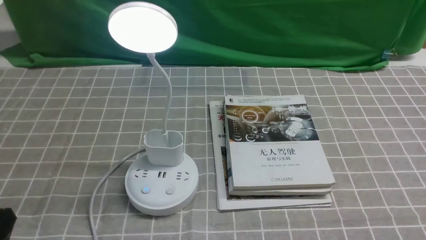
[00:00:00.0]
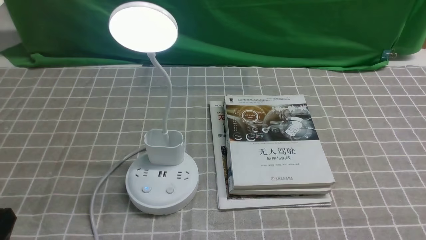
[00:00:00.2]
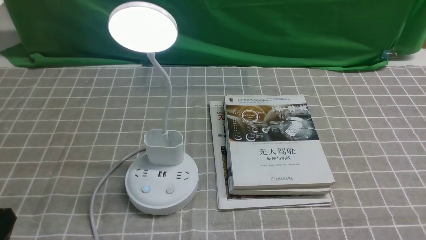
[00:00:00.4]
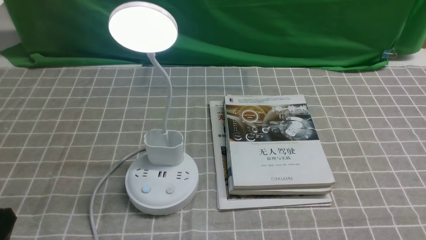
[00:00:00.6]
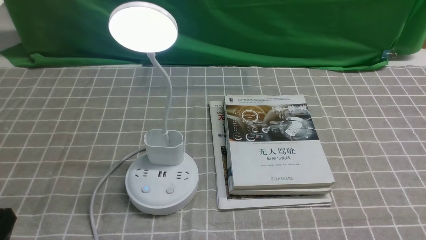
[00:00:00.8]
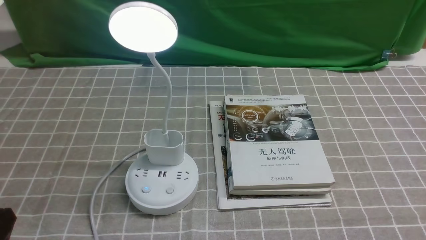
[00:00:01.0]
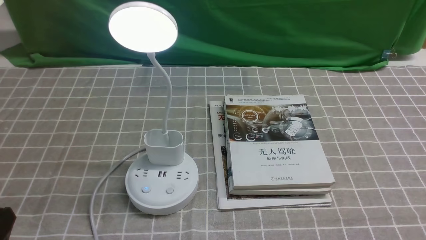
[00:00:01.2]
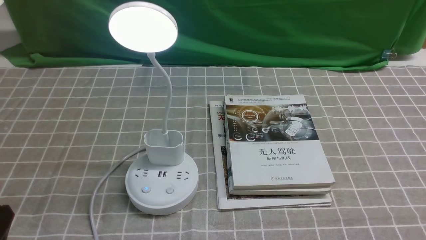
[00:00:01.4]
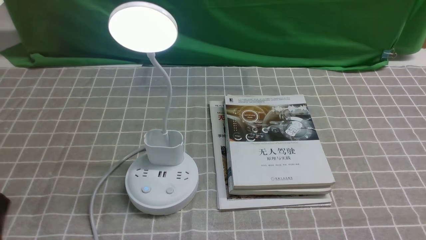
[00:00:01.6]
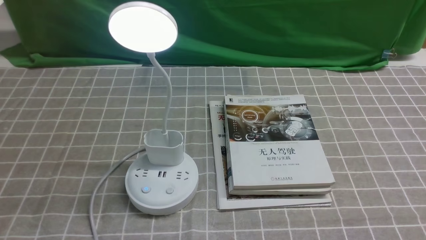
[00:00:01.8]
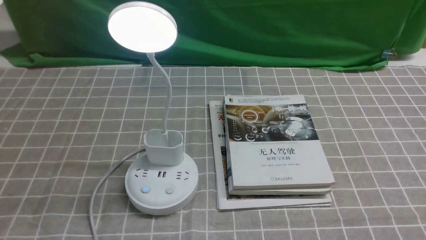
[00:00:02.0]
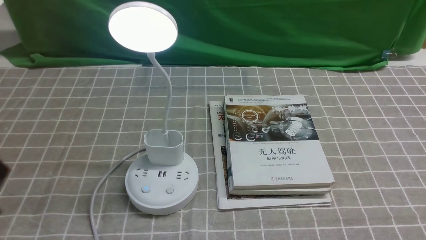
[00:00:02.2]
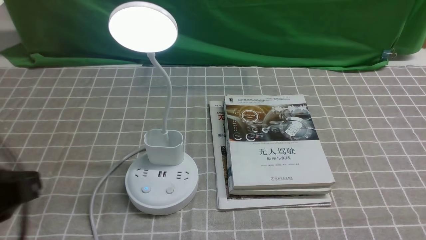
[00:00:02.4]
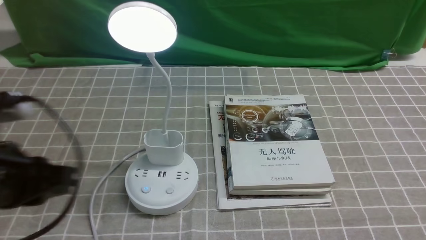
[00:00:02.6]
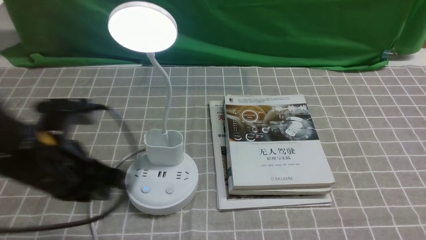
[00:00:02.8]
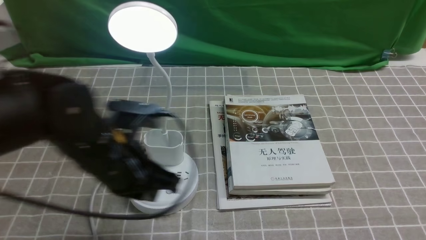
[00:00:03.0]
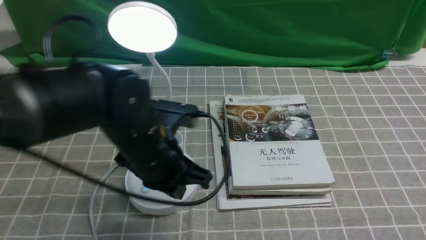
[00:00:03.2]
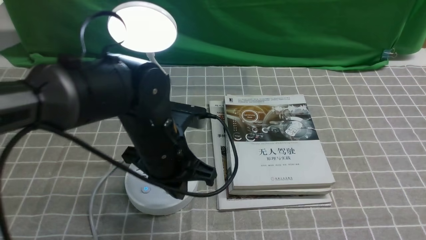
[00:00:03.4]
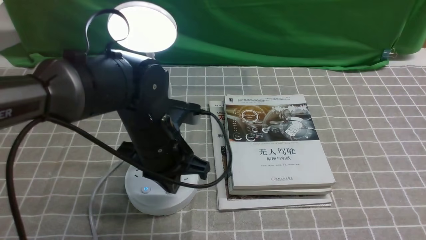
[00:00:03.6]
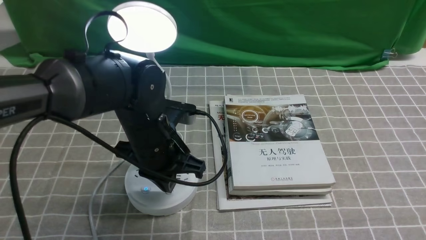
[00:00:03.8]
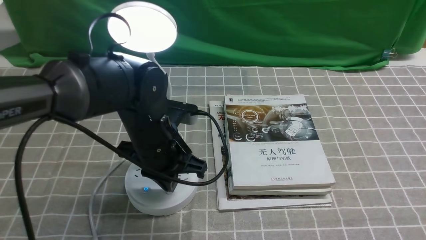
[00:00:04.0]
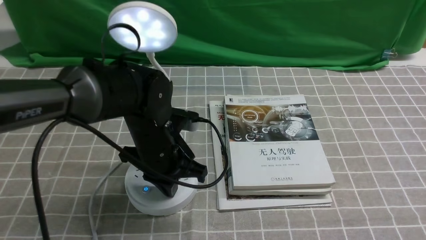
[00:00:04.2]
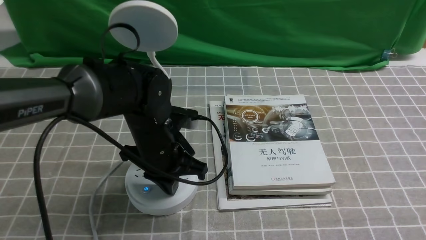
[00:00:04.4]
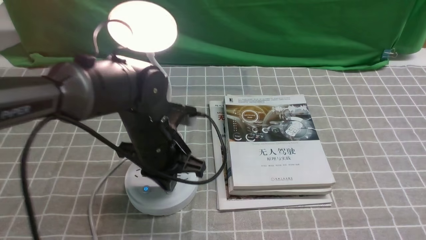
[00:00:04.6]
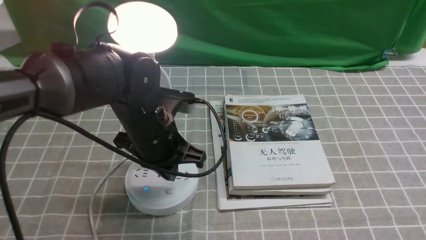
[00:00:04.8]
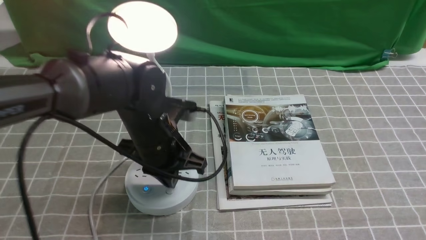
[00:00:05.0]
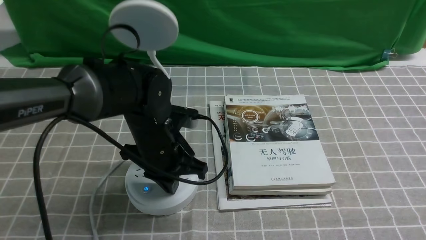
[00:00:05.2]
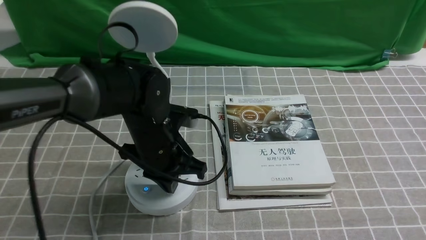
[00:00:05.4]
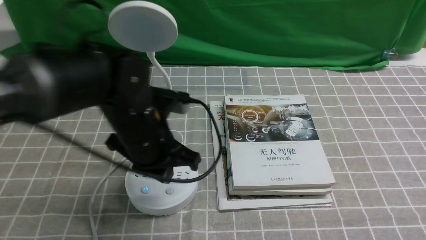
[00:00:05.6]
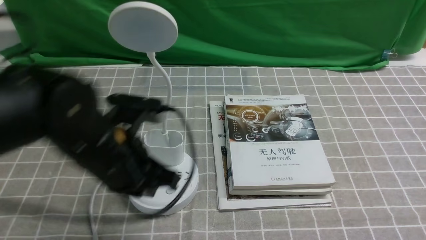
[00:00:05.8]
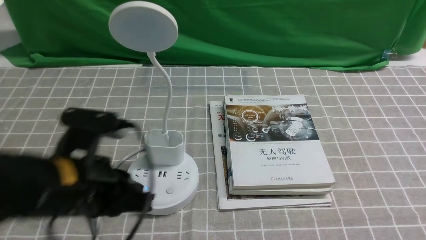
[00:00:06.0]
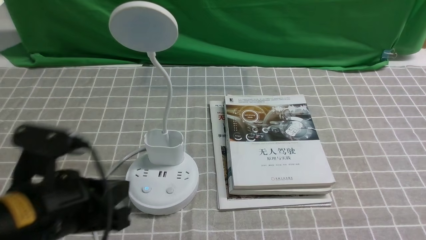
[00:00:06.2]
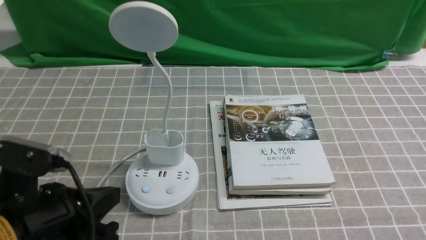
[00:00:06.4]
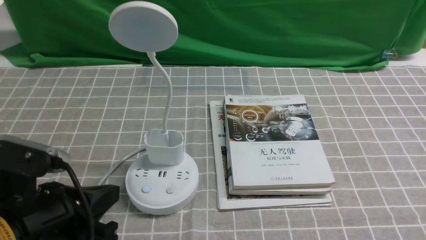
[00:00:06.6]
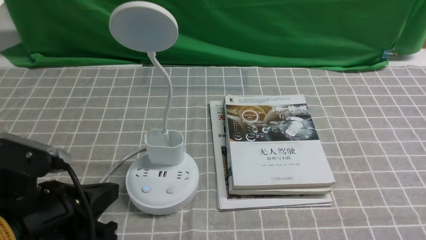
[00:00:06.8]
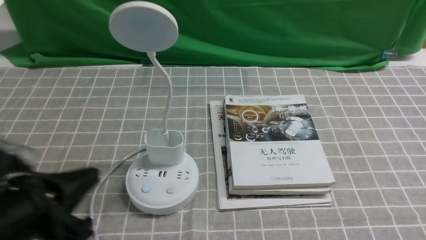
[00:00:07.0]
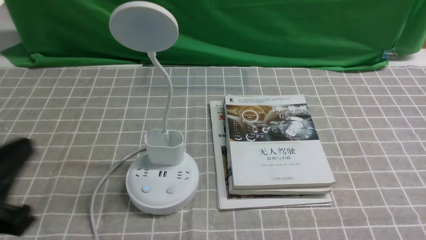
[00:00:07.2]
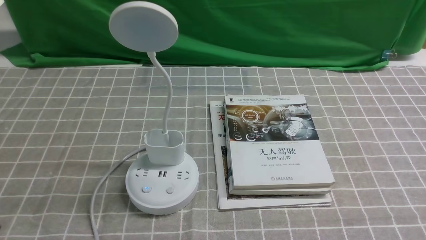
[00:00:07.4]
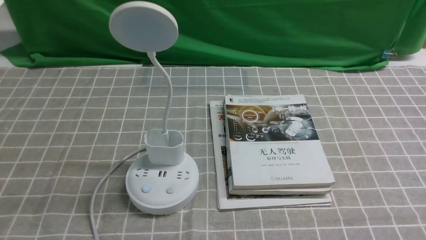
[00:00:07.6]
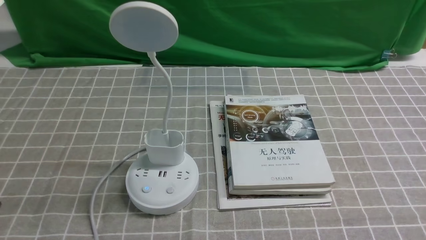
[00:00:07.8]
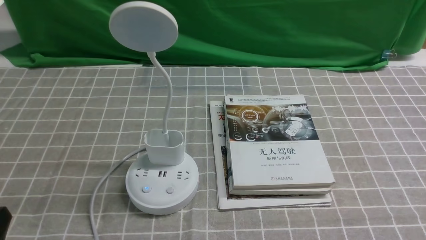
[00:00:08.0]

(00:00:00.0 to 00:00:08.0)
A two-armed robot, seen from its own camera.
Task of the whole recording: turn off the desk lamp on the grey coffee tablecloth by hand.
Step, 00:00:00.0 - 00:00:05.4: use the left arm to press the button switch on the lamp holder.
00:00:01.6 - 00:00:03.2: The left gripper is displaced forward and to the right by some 25 cm, and closes up.
00:00:03.2 - 00:00:04.8: The left gripper travels forward by about 5 cm.
00:00:04.8 - 00:00:06.4: The left gripper heads backward and to the left, covering roughly 20 cm.
00:00:06.4 - 00:00:08.0: The left gripper shifts approximately 10 cm backward and to the left.
